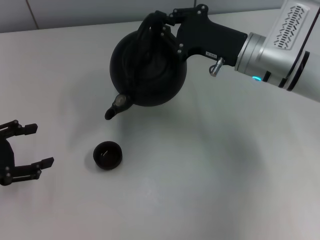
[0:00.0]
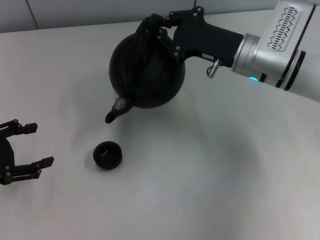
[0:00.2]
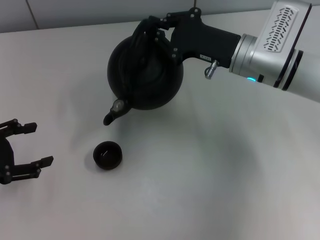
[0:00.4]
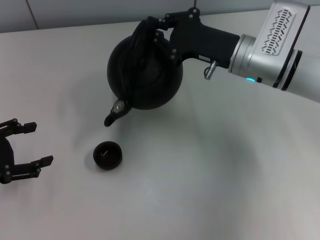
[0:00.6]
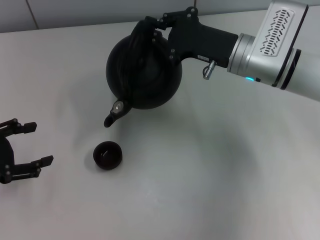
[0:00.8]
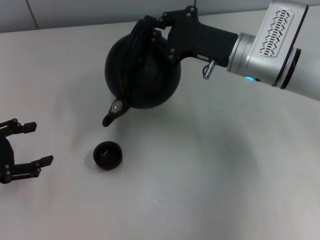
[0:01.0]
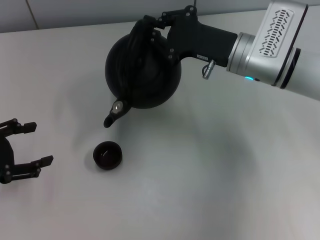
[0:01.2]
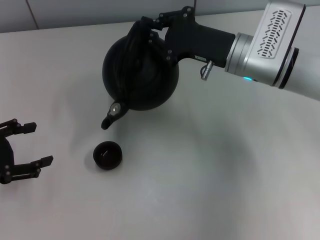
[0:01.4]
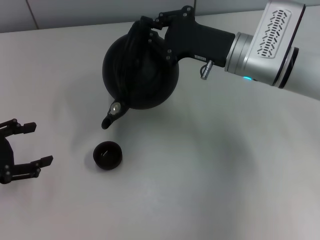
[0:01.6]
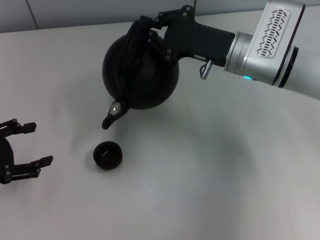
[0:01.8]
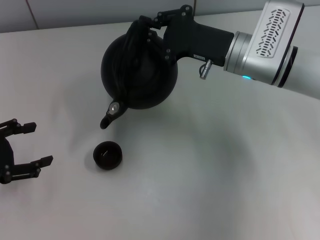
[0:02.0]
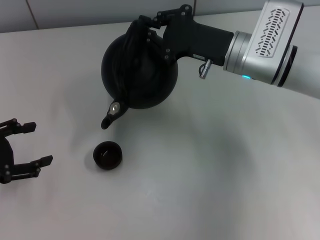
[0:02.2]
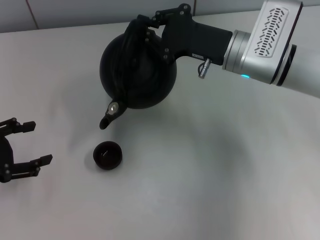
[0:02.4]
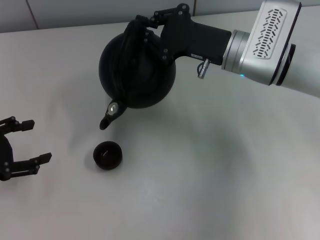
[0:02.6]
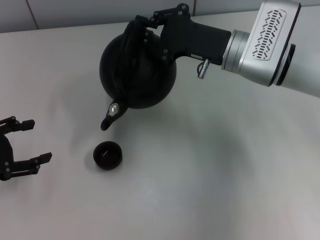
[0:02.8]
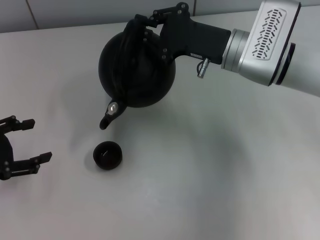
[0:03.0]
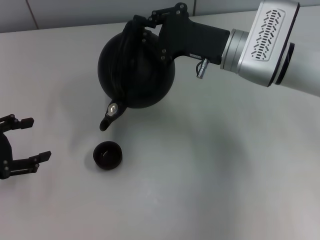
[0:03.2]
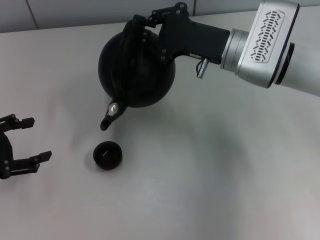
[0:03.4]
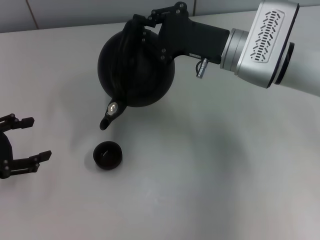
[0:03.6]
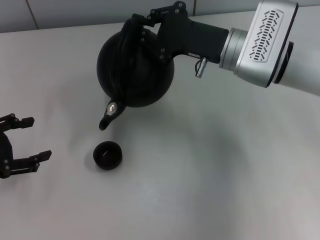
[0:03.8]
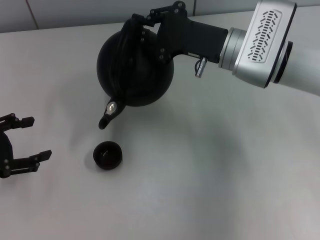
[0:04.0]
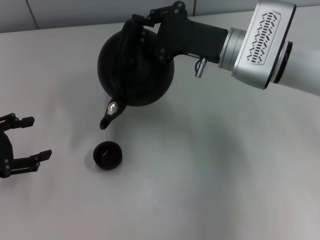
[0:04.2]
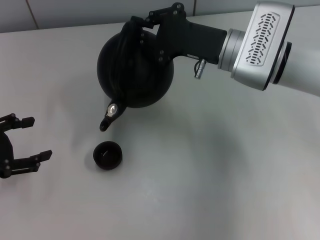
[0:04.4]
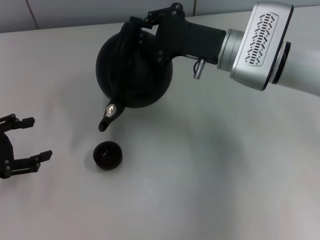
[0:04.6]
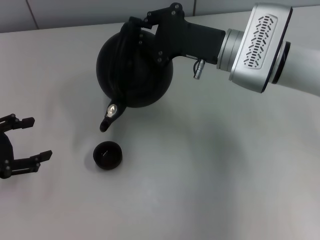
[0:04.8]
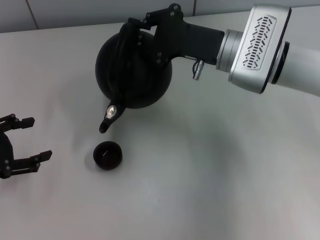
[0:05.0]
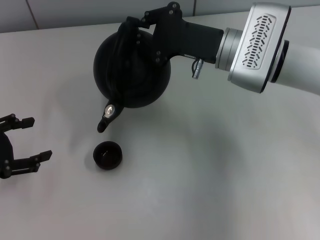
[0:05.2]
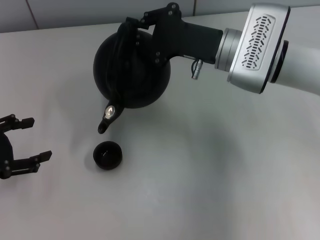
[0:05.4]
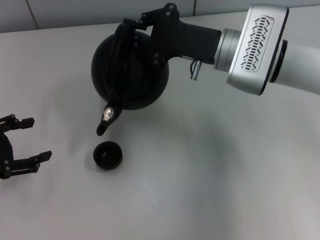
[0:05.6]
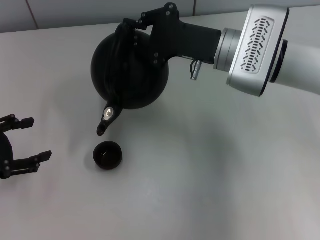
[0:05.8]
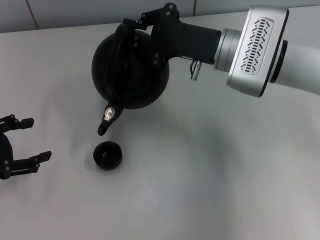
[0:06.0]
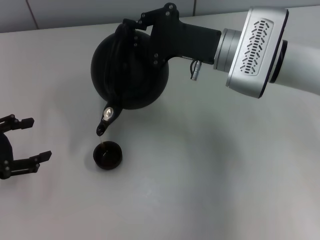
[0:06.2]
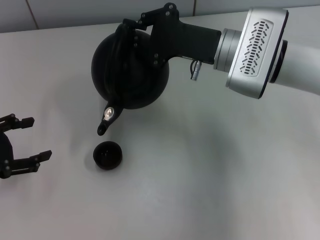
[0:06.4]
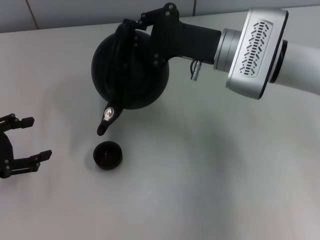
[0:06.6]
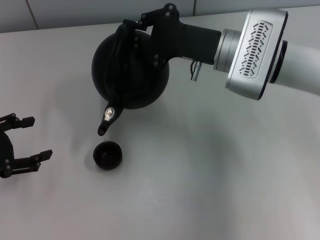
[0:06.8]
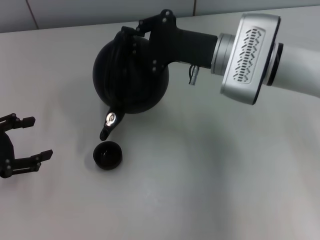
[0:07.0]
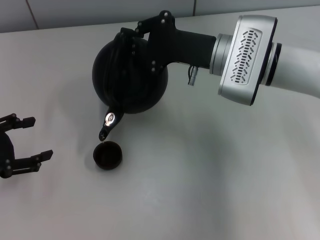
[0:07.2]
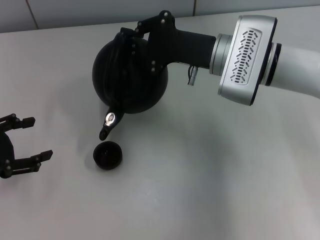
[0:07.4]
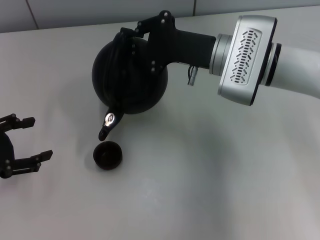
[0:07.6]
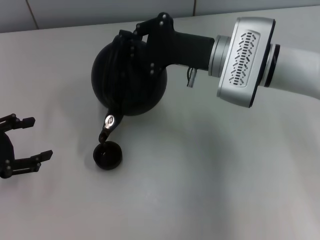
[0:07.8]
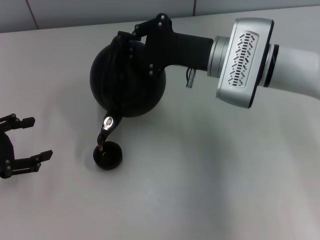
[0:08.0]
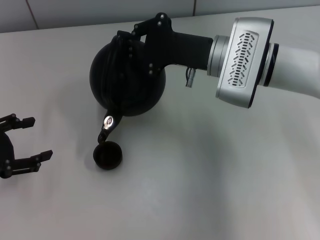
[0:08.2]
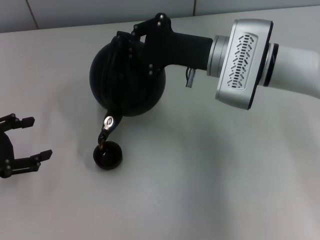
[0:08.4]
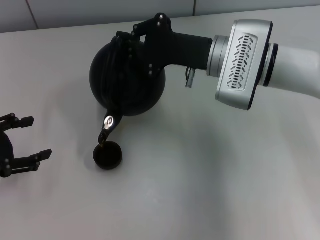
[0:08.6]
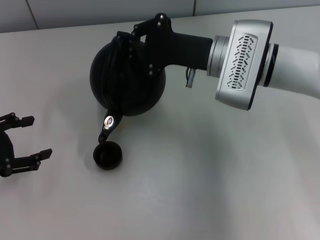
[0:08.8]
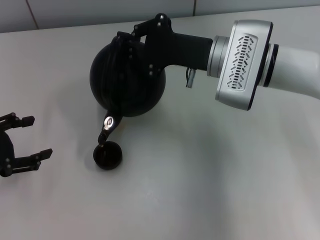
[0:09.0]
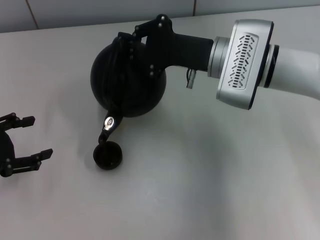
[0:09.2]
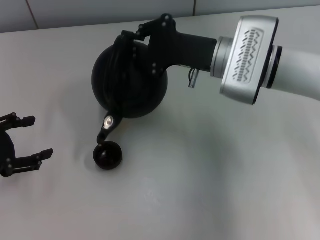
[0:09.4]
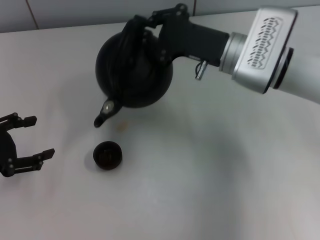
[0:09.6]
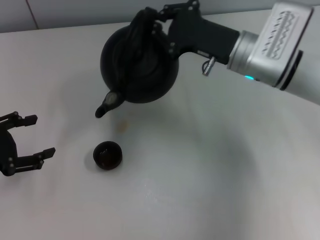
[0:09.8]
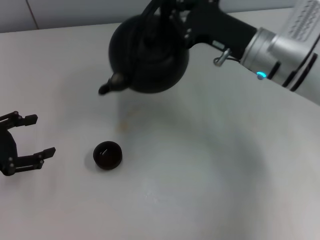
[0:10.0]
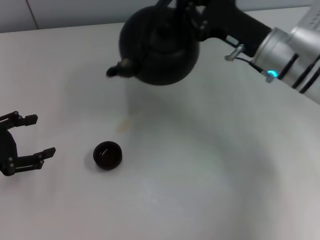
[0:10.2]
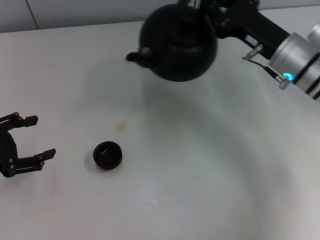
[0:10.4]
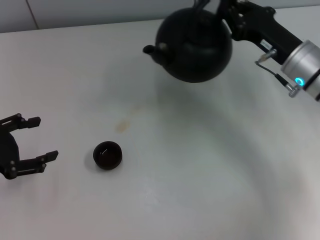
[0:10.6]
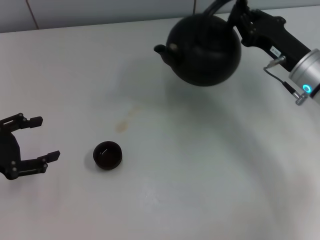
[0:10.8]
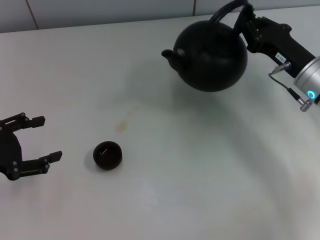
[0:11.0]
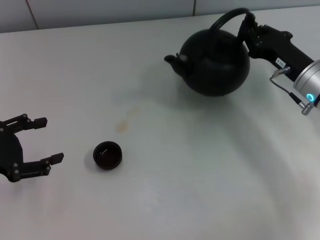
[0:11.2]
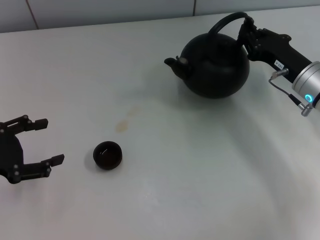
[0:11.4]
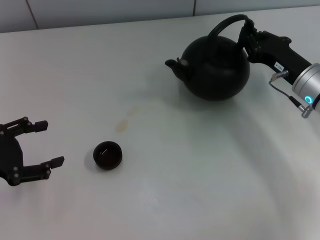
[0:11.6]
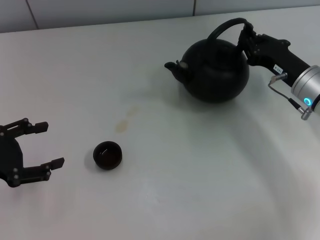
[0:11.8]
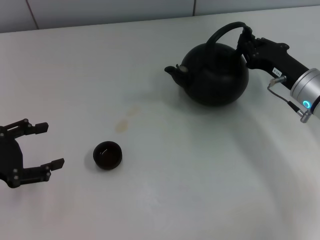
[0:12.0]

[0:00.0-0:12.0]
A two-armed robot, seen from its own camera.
Task of the whole recording: Grasp the handle of the teapot with one hand and pour tea into the teacup.
0:00.0 to 0:01.6: The grippers stay close to where they were, moving slightly.
0:01.6 to 0:03.0: The two grippers keep their place.
0:03.0 to 0:04.4: Neither gripper changes place.
0:04.4 to 0:06.0: The grippers make only small movements.
0:06.0 to 0:07.6: The two grippers keep their place.
0:07.6 to 0:09.0: The two grippers keep their place.
0:09.0 to 0:10.4: The right gripper shifts approximately 10 cm to the right.
0:10.4 to 0:12.0: The right gripper shifts by roughly 5 cm.

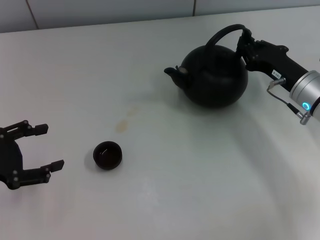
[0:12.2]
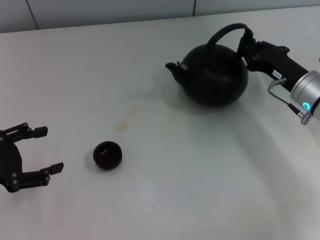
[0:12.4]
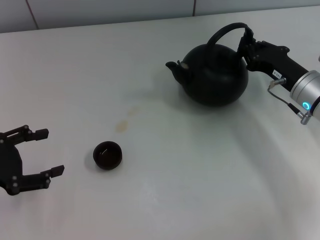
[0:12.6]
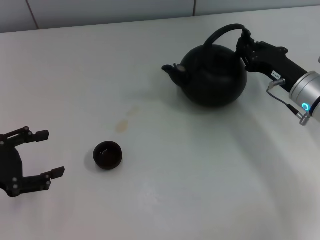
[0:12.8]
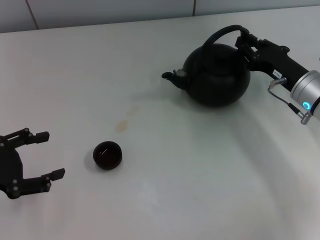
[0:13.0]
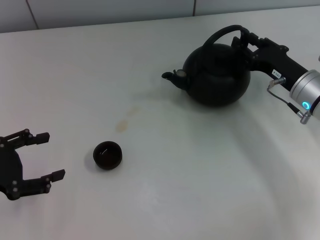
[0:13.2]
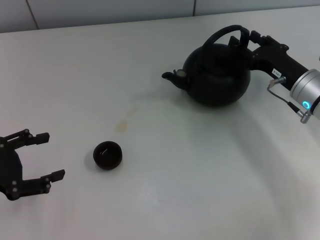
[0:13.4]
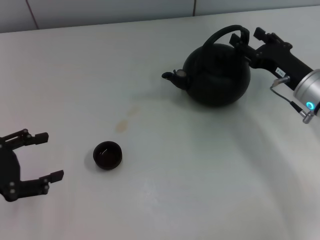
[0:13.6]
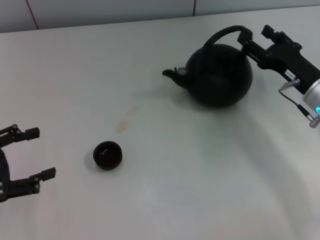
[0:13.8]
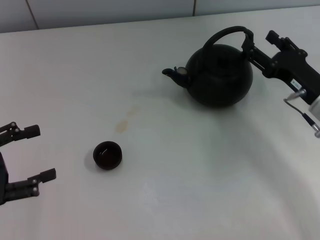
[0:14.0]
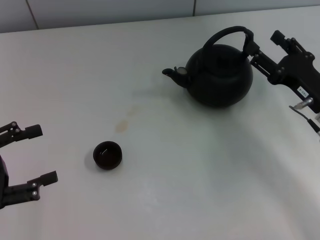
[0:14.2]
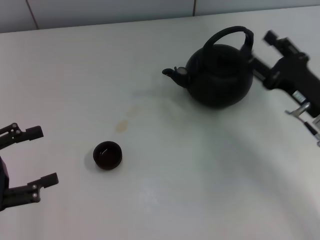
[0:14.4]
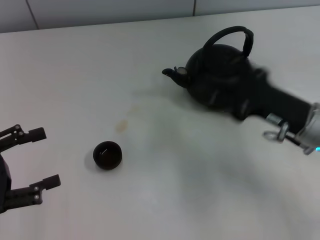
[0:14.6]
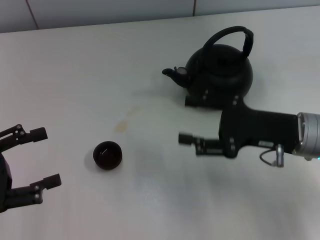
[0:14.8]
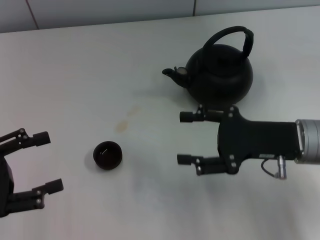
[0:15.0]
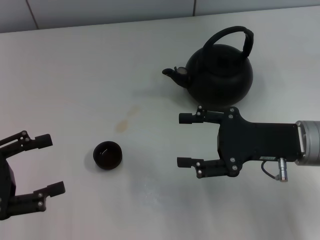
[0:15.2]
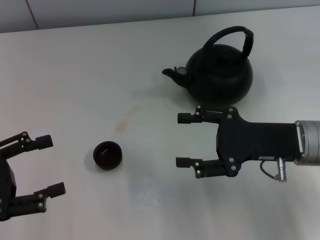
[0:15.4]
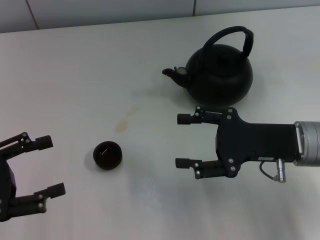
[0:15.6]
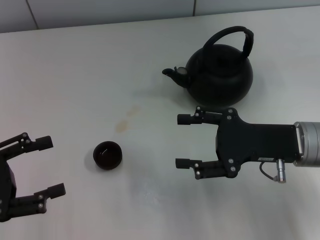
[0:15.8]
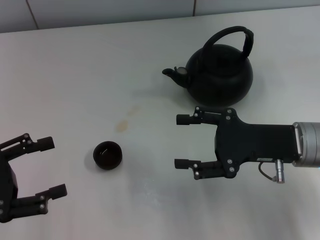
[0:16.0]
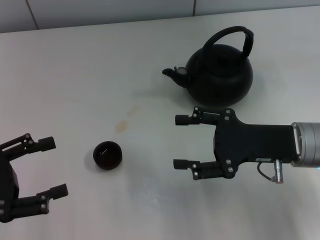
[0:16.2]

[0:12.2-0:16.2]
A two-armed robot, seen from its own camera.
Task of the whole recording: Grasp the handle of the teapot with one hand and pour tea into the teacup.
Step, 0:12.2 to 0:14.2: Put down the teapot with the right gripper.
0:12.2 to 0:13.6: The right gripper opens.
0:13.6 to 0:14.8: The right gripper shifts roughly 5 cm backward.
0:14.8 to 0:16.2: The grippers stay close to where they were, moving slightly.
